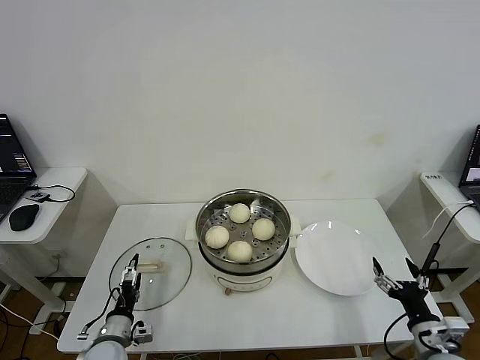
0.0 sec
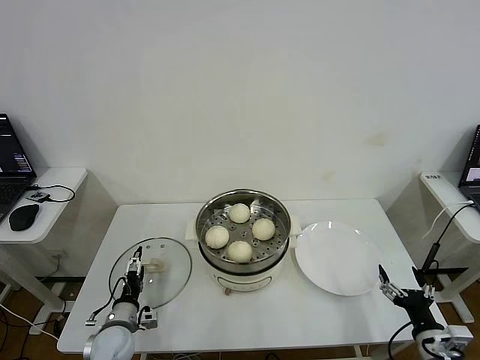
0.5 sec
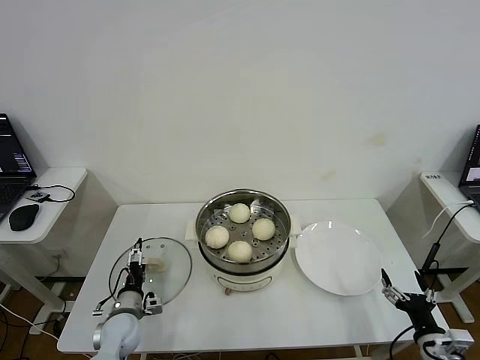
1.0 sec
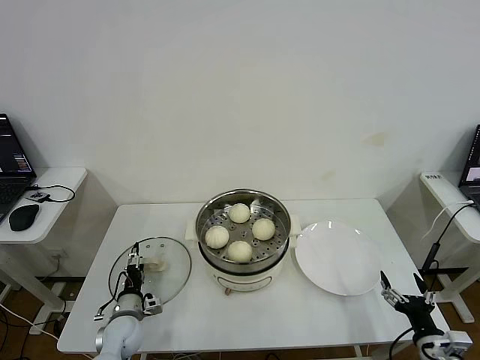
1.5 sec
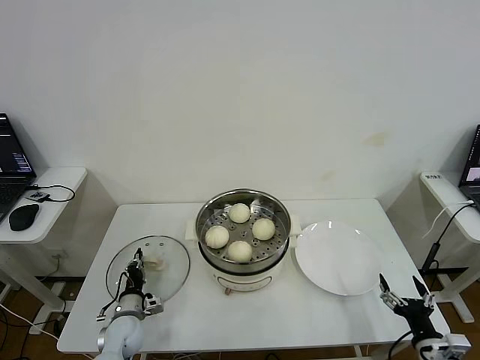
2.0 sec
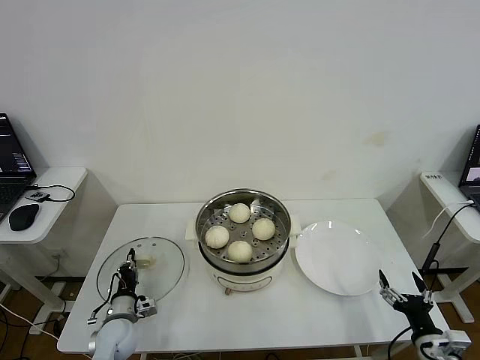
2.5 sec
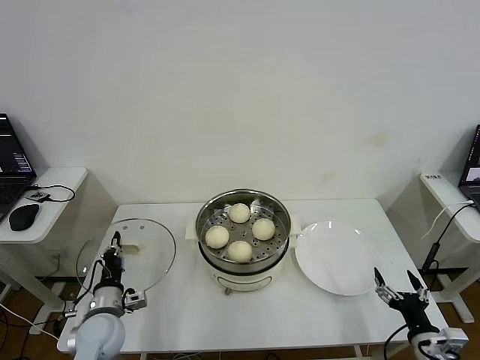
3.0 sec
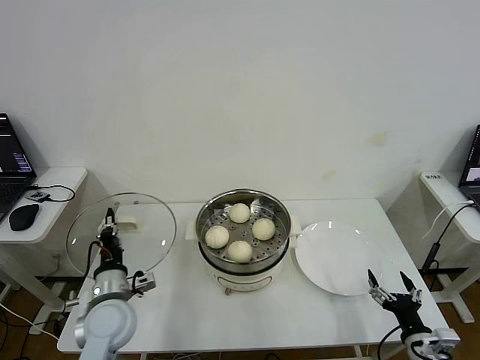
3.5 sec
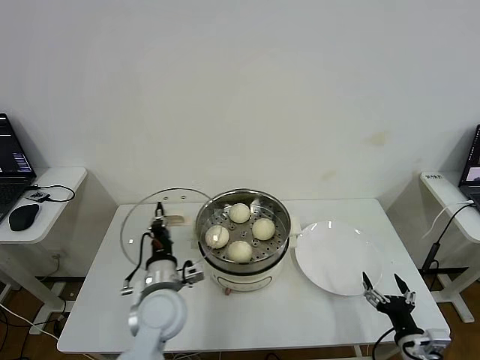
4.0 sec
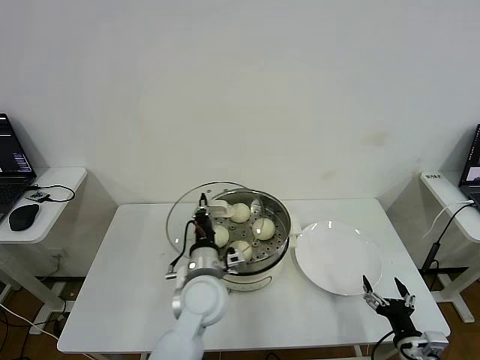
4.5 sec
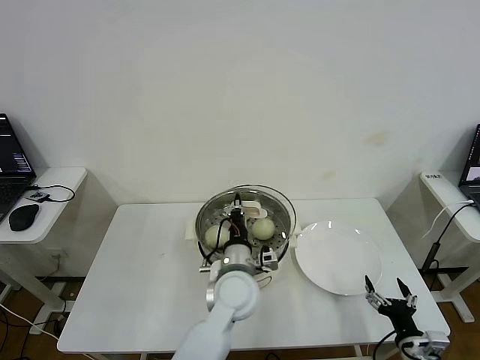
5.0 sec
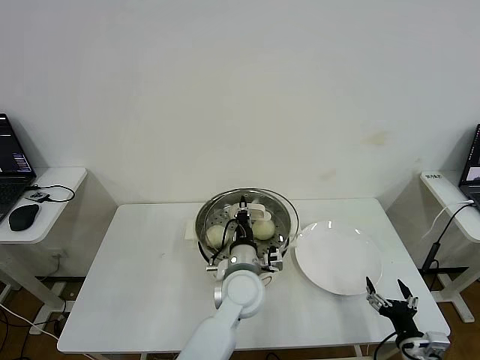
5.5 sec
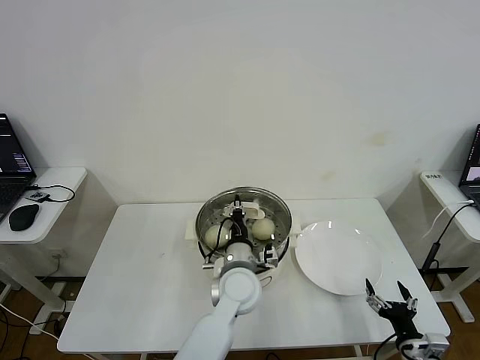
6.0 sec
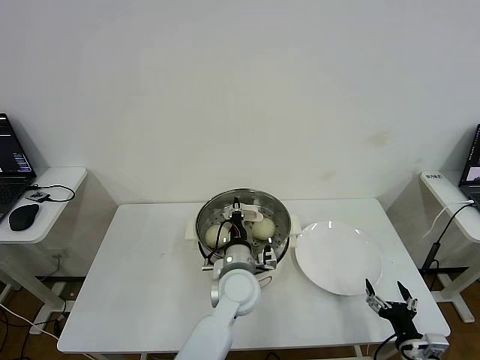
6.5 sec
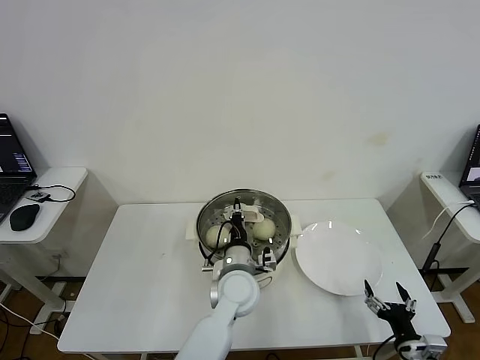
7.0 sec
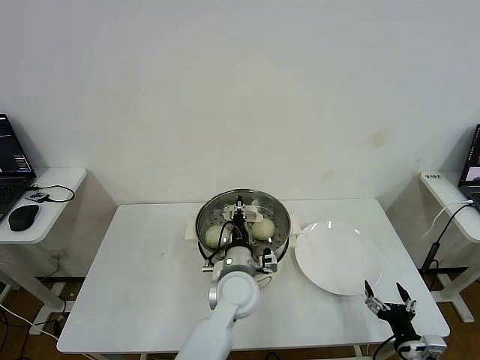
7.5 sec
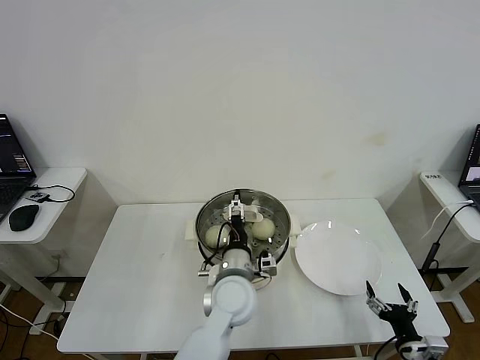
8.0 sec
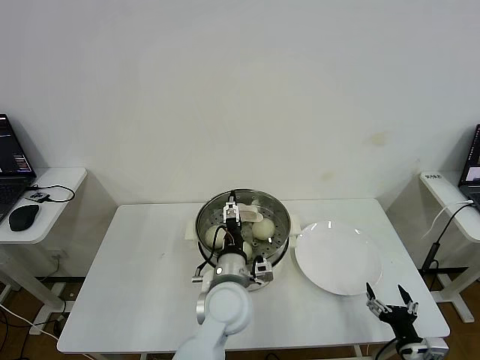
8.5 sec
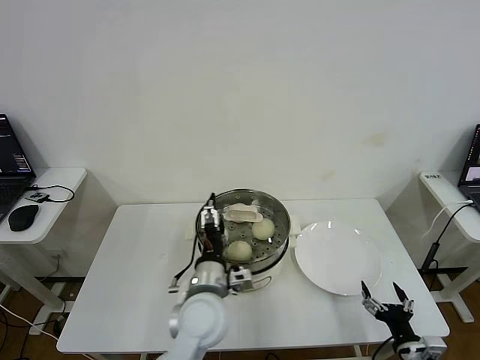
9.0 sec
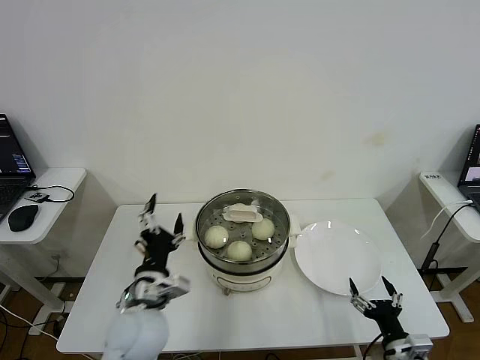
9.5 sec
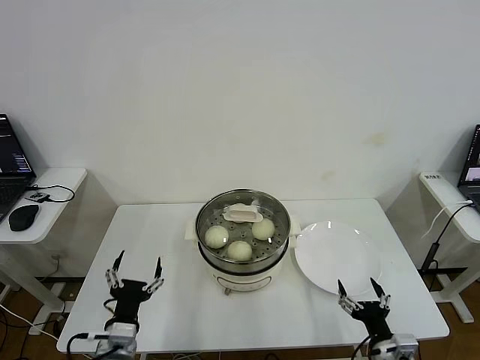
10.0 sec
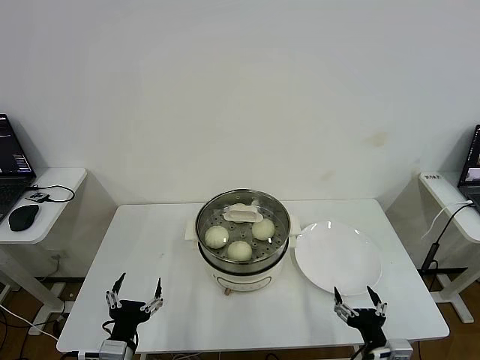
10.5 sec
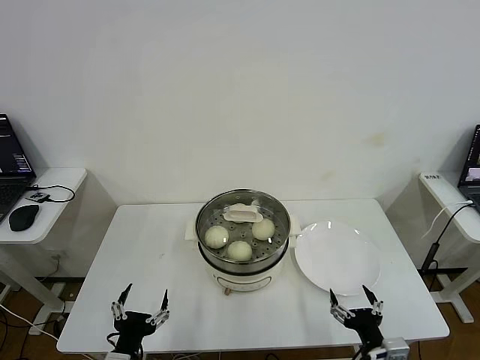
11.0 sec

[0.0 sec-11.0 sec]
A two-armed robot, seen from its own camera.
Step, 0.0 sec to 2.0 sec: Grasp the pot lid with left gripper.
Step, 2.5 sec to 7.5 sec: Place the pot lid on the steamer with left gripper.
0.0 sec to 2.0 sec: The left gripper goes approximately 5 cm forward, and closes.
2.0 sec to 3.5 sec: The left gripper heads upward, covering roughly 15 cm.
3.5 sec to 5.5 sec: The left gripper shifts roughly 25 cm to the right.
5.5 sec to 7.5 sec: There are only small adjustments of the grippers.
7.5 sec to 9.0 sec: The left gripper shifts some 5 cm backward, and opens its fingers.
9.0 sec to 11.0 sec: The right gripper goes approximately 10 cm to the left, while the left gripper moves to the left, backward and downward, about 25 cm.

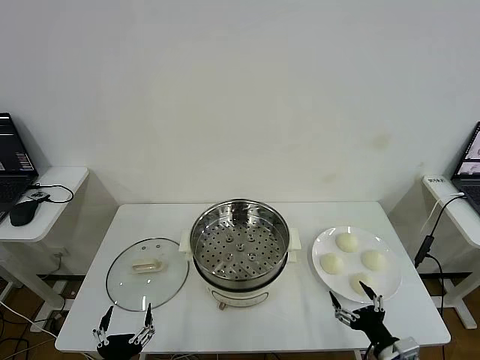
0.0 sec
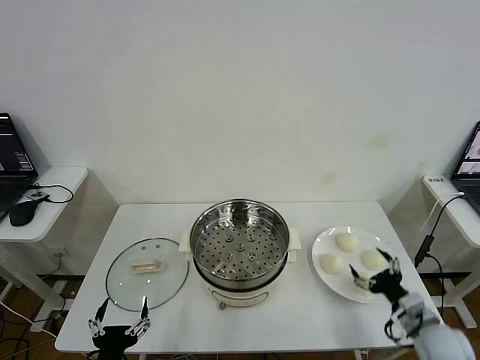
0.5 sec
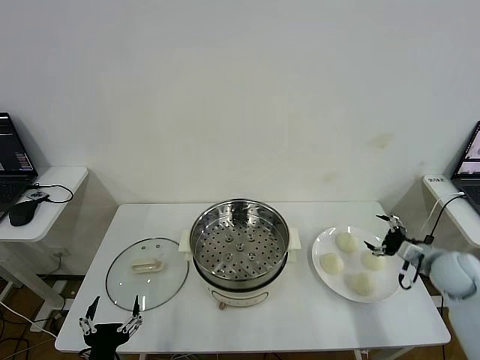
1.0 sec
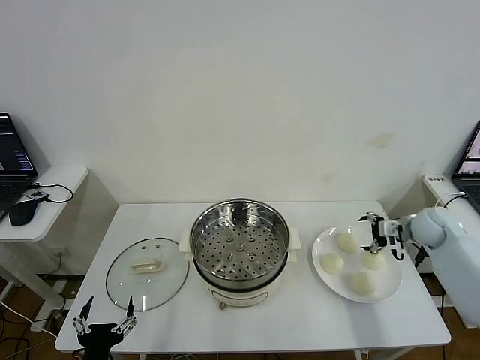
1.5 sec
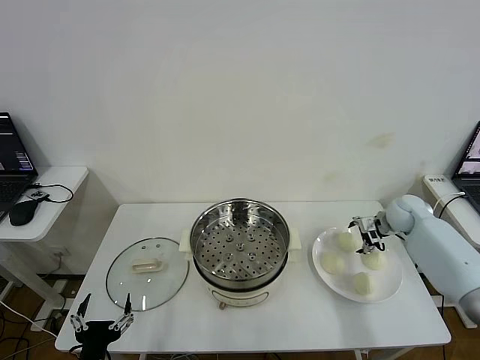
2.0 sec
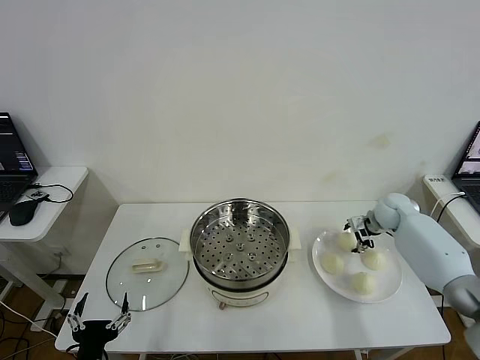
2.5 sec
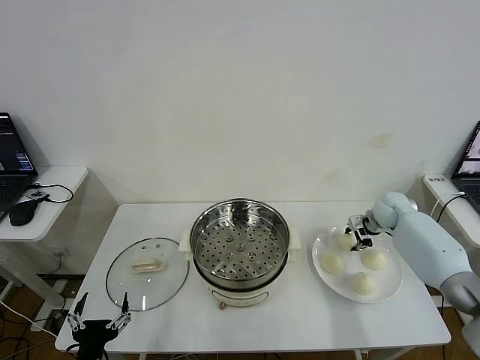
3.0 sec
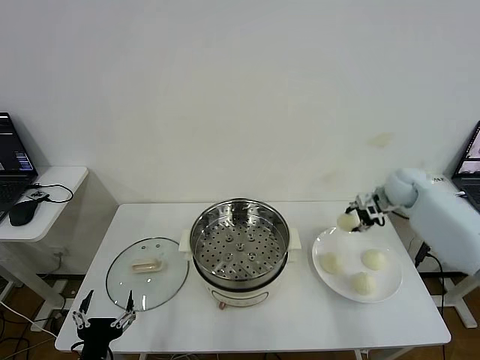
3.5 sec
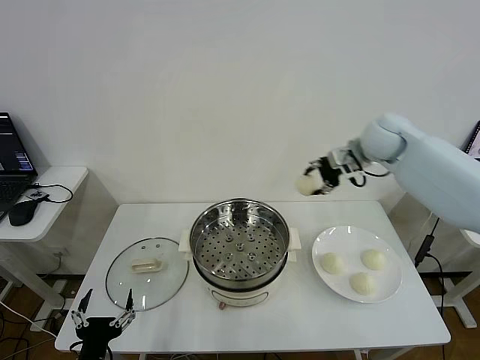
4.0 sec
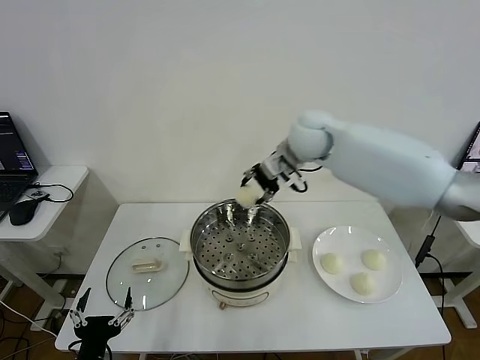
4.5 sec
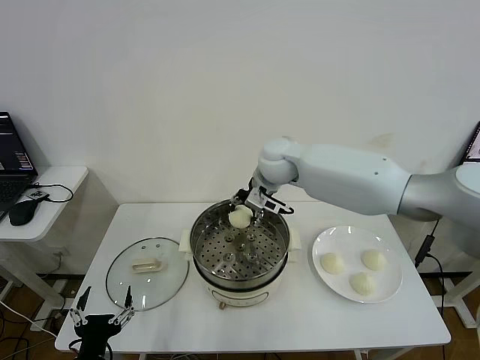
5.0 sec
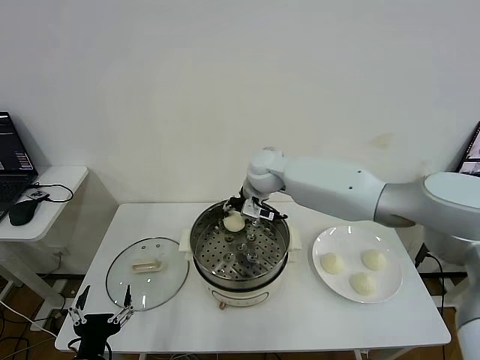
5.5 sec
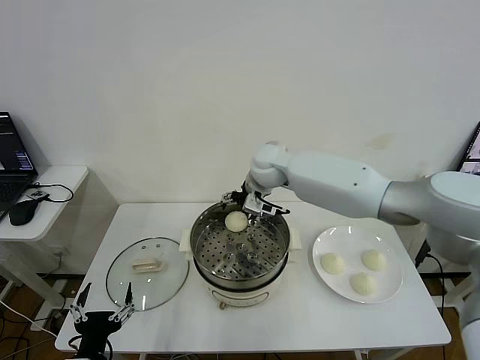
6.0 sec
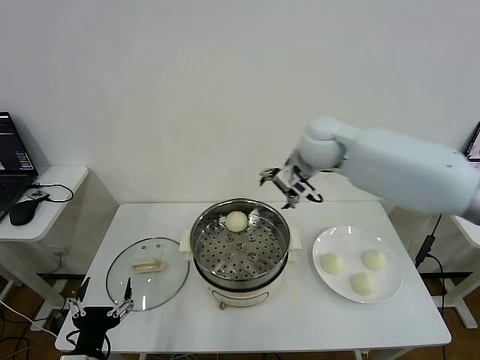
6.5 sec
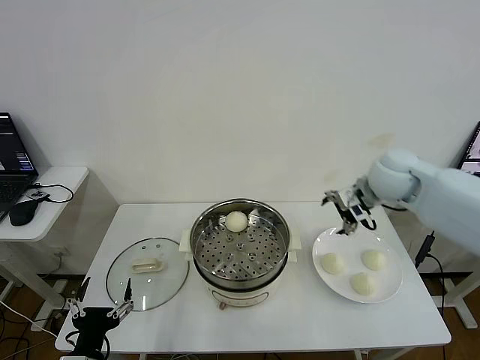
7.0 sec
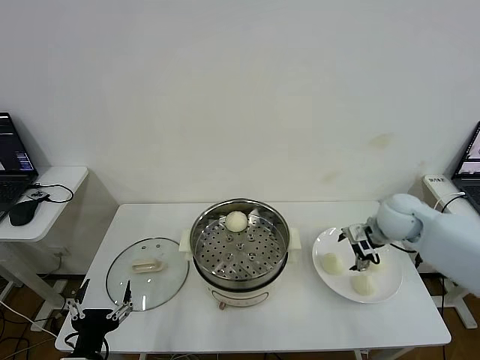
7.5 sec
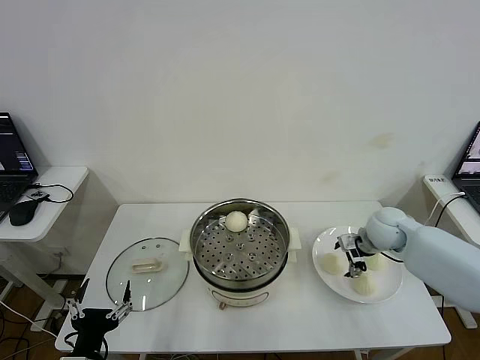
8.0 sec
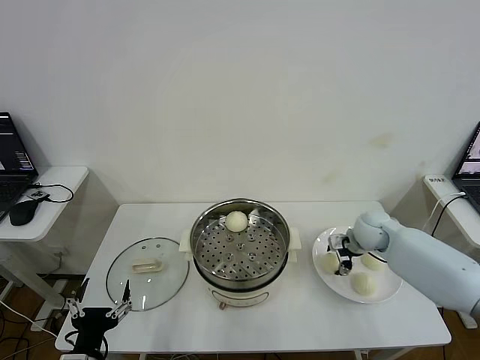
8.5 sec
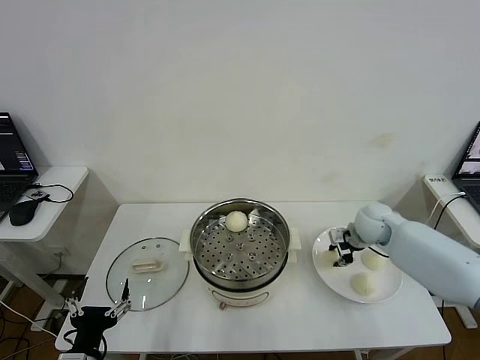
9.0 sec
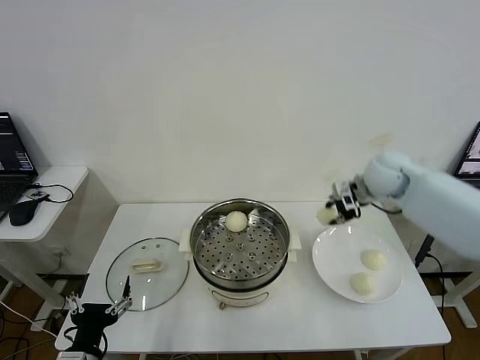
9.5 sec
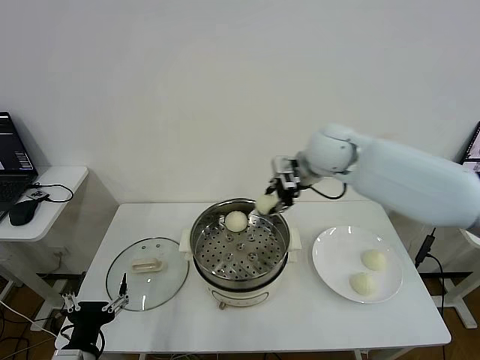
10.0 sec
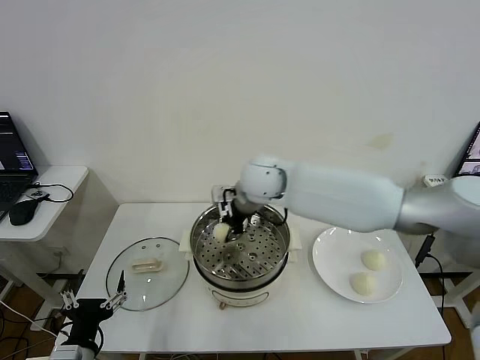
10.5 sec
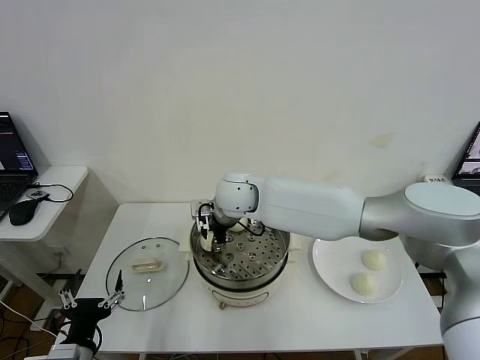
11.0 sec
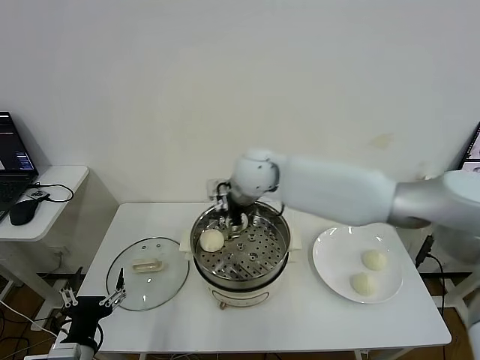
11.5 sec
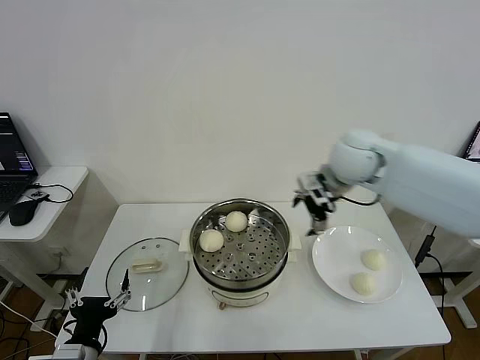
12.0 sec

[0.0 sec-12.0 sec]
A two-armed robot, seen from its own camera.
Step, 0.0 sec to 2.5 sec: Grasp the baozi in the plate with right gripper.
Step, 3.0 sec to 5.5 sec: Place the baozi on the steamer with right gripper.
Step, 6.0 sec to 8.5 sec: Grasp the baozi in the plate with right gripper.
Step, 9.0 sec to 11.0 sec: Place the baozi on the steamer with right gripper.
2.0 sec to 4.0 sec: The right gripper moves upward and to the left, approximately 30 cm, and closes its fingers.
4.0 sec to 6.0 sec: The right gripper travels to the left and downward by roughly 20 cm, and opens up.
6.0 sec to 8.0 sec: The right gripper goes some 30 cm to the right and downward.
8.0 sec to 10.0 sec: The right gripper goes some 30 cm to the left and upward, and closes up.
10.0 sec to 12.0 sec: The right gripper is displaced to the right by about 10 cm, and opens.

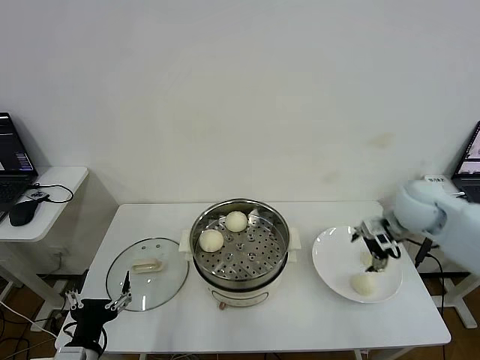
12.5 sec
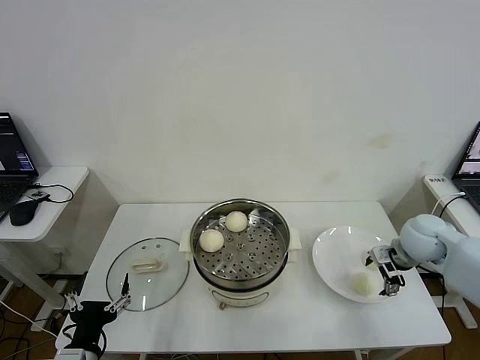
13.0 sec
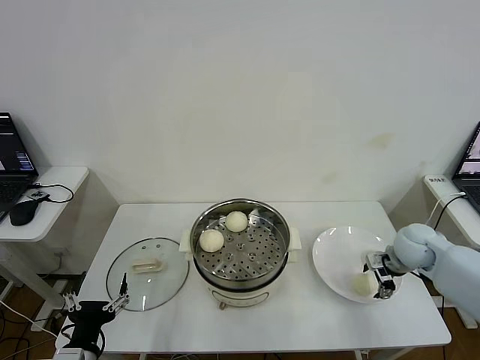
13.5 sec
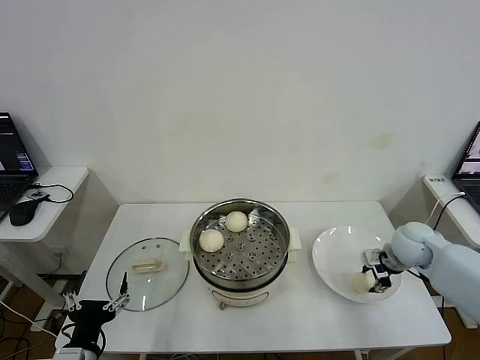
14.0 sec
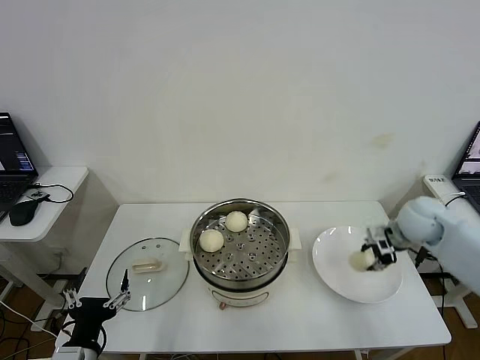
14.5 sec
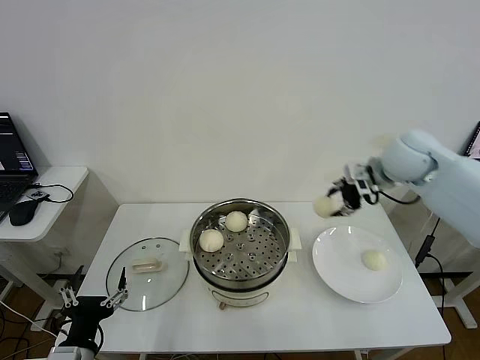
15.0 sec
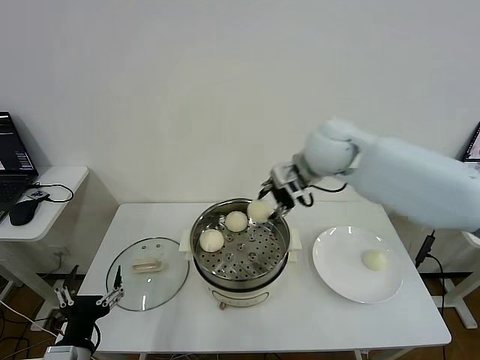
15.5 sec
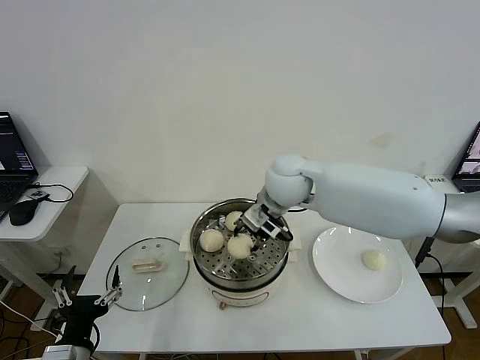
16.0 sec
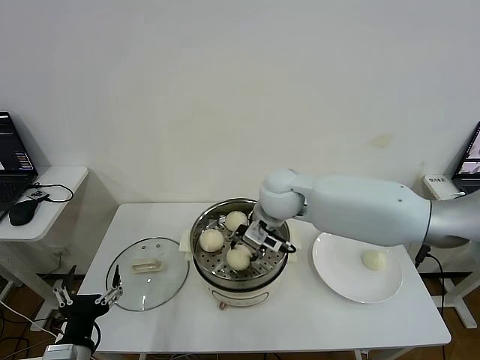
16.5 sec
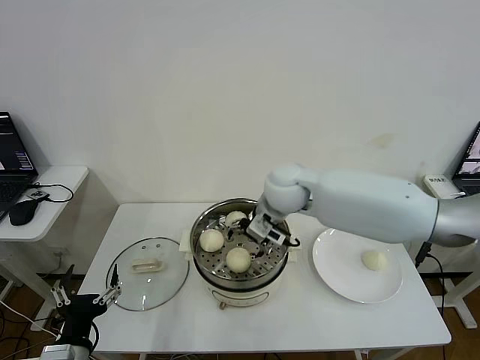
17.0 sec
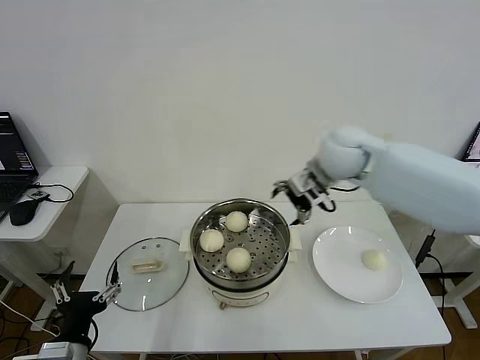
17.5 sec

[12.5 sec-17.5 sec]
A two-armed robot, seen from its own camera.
Step, 14.5 sec to 16.5 sec: Place the baozi on the steamer with right gripper.
12.5 sec to 15.0 sec: The right gripper heads upward, to the left and forward, covering roughly 15 cm, and closes.
15.0 sec to 17.5 sec: The right gripper is displaced to the left by about 10 cm, and opens.
